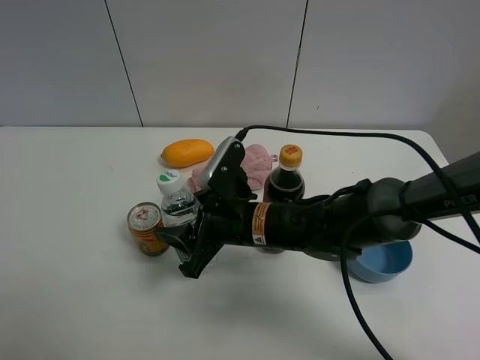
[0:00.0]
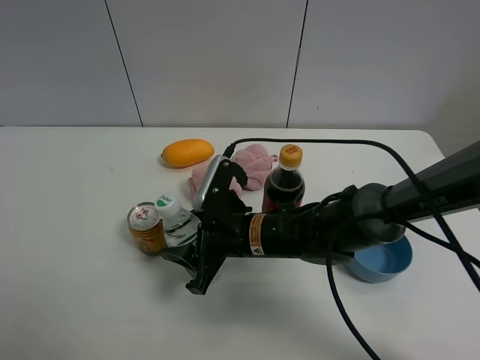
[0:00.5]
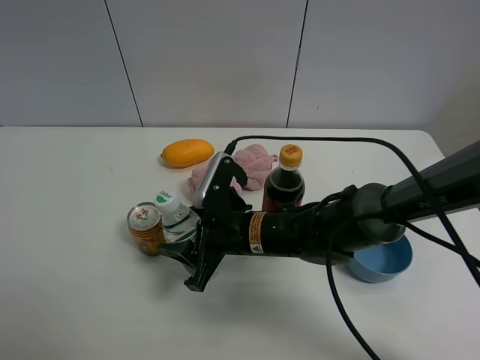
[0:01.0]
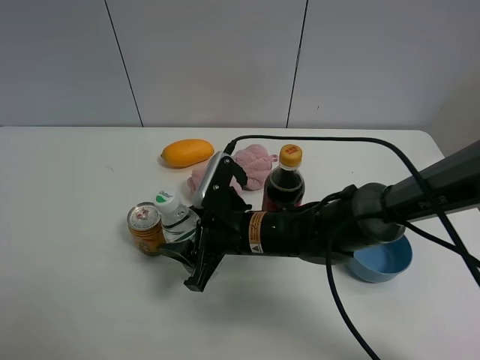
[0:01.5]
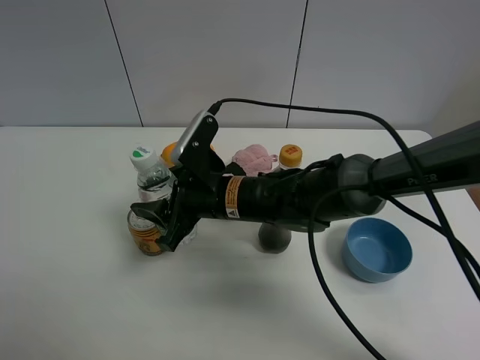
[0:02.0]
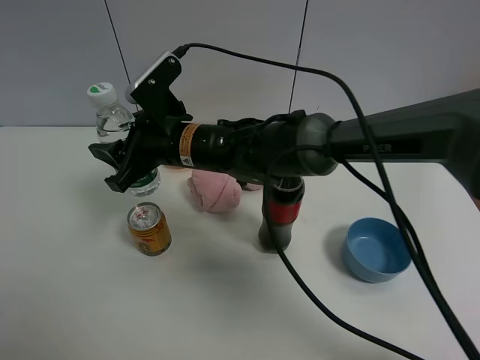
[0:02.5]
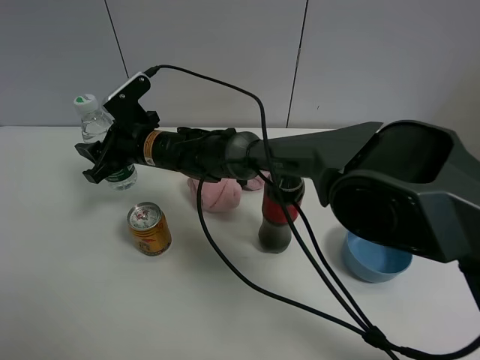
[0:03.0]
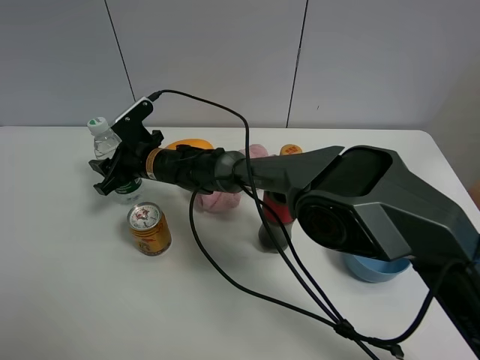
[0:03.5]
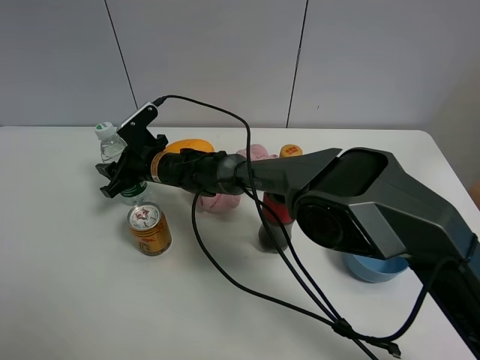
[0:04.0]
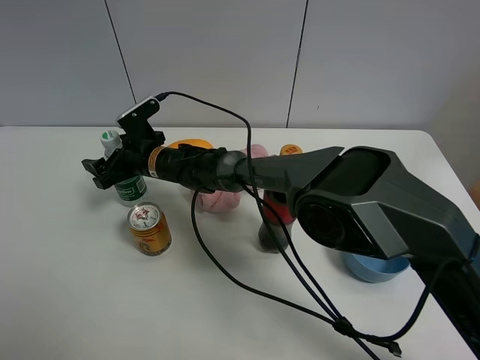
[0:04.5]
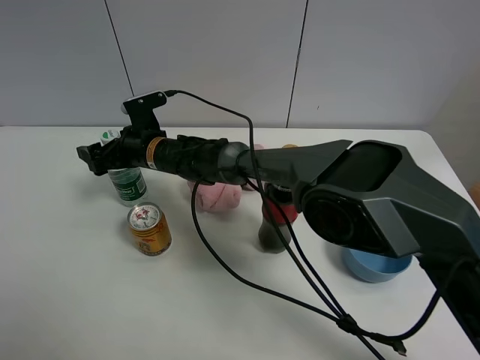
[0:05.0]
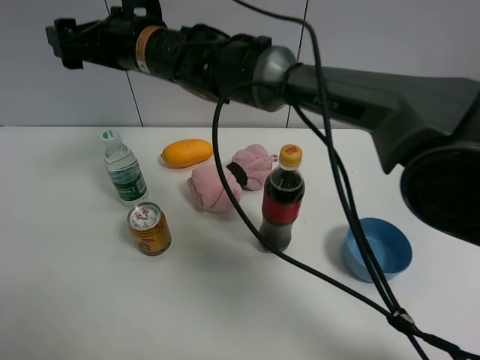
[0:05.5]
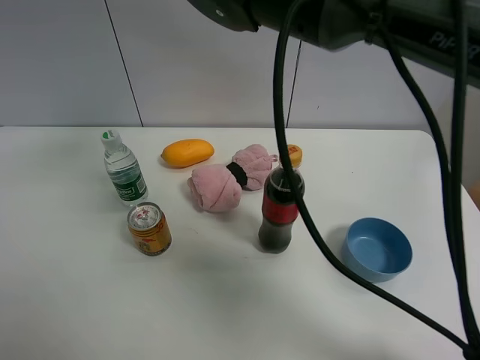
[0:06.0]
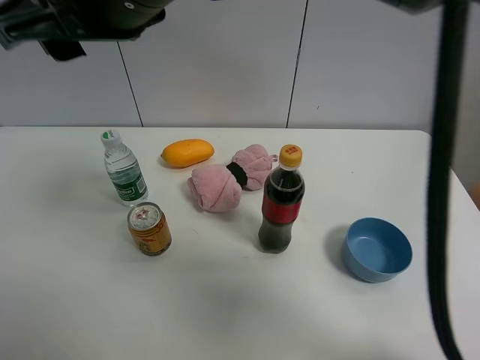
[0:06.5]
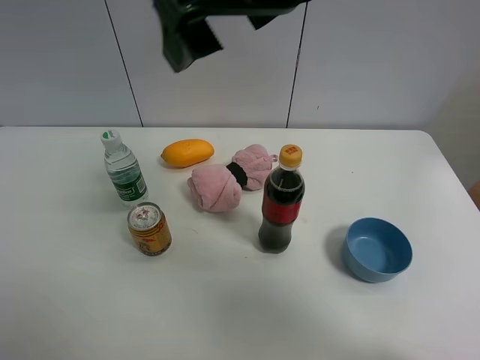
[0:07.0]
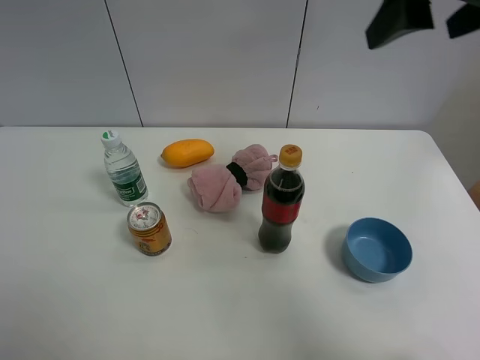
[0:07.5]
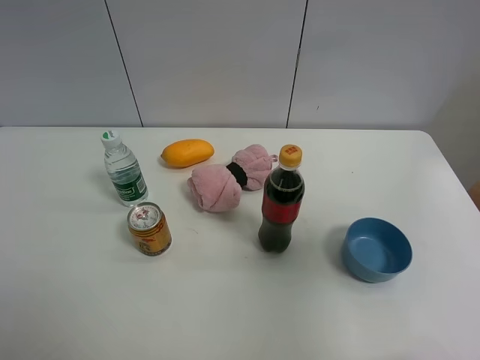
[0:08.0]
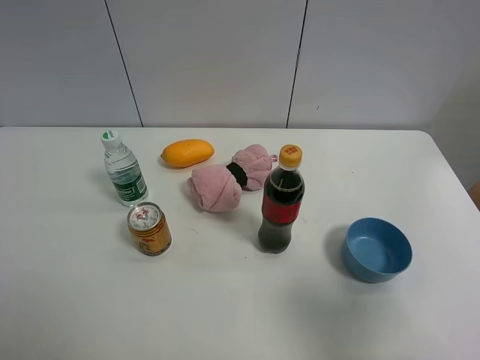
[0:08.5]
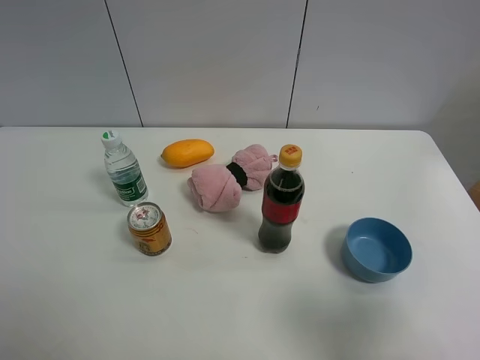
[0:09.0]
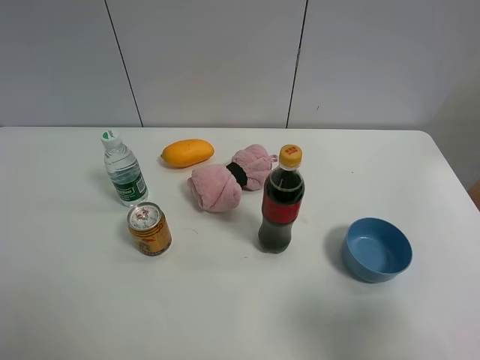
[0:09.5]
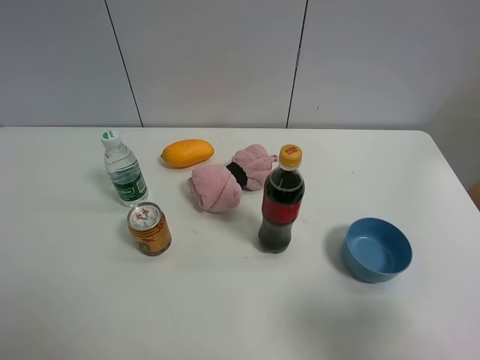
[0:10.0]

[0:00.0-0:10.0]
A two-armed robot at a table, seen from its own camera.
Task of the whole recording: the gripper move the object.
Step, 0:00.0 to 0:05.0: Place the YiBao mineral water on the table with the right gripper.
0:00.0 to 0:02.0: There are only small adjustments of the grippers.
0:02.0 to 0:04.0: The right gripper is displaced forward, to the left and downward by approximately 20 cm.
0:04.0 to 0:06.0: The right gripper moves upward, roughly 30 cm, and opens up.
0:06.0 to 0:08.0: The right gripper is displaced to the right and backward by some 40 cm, and opens its fingers.
0:08.0 to 0:10.0: The right gripper goes roughly 15 cm downward and backward.

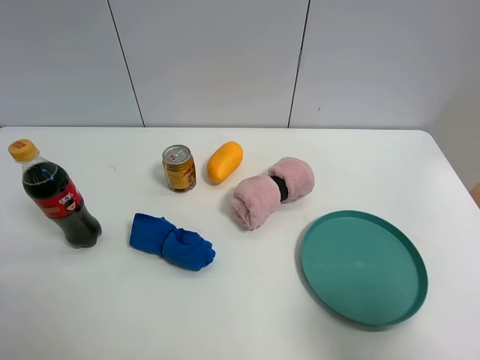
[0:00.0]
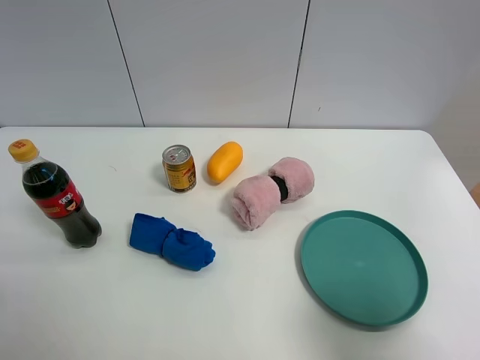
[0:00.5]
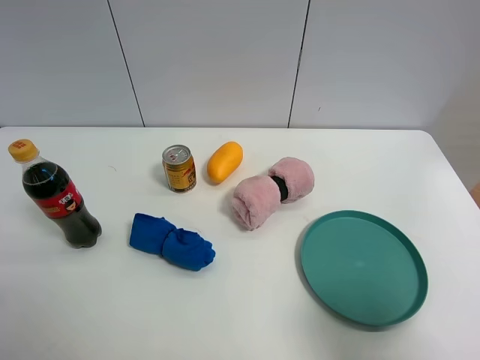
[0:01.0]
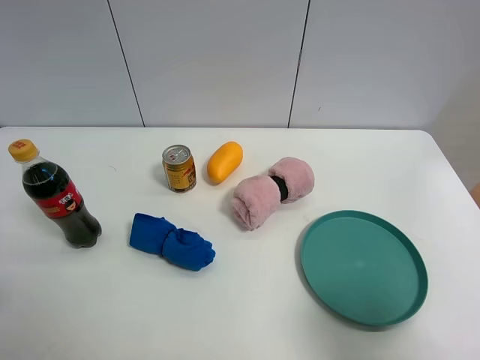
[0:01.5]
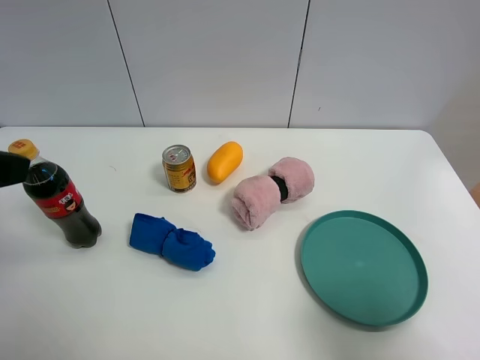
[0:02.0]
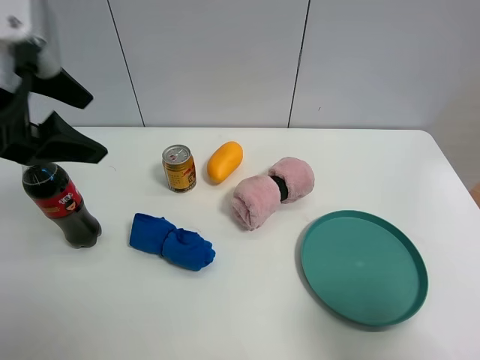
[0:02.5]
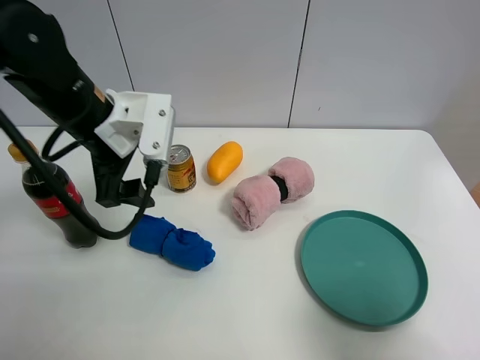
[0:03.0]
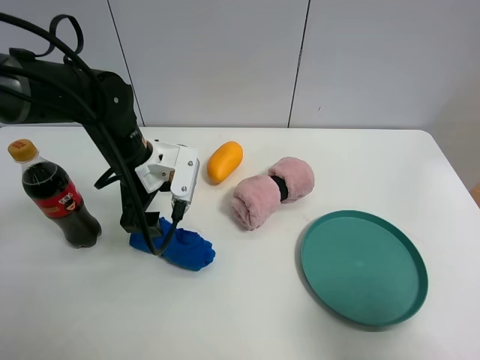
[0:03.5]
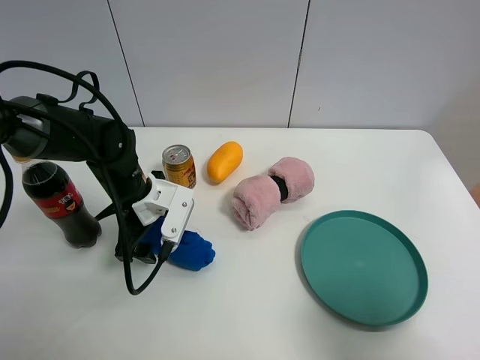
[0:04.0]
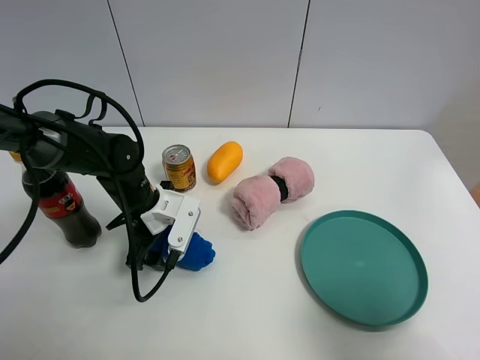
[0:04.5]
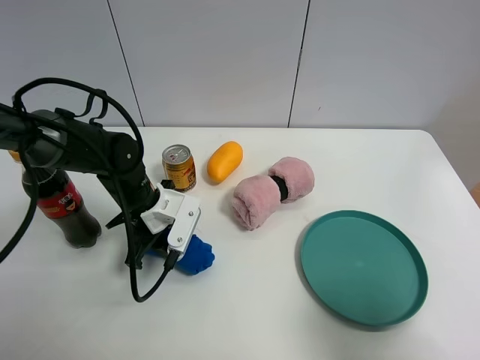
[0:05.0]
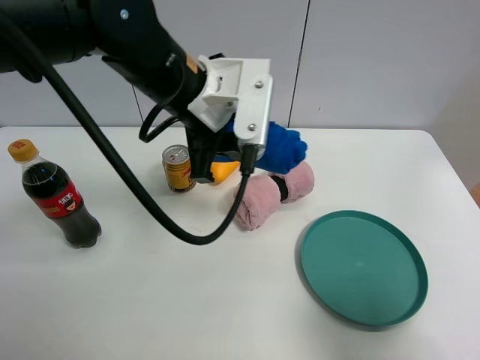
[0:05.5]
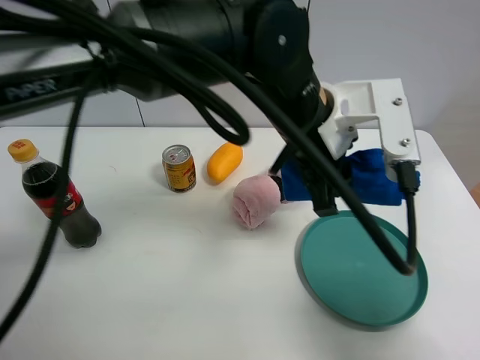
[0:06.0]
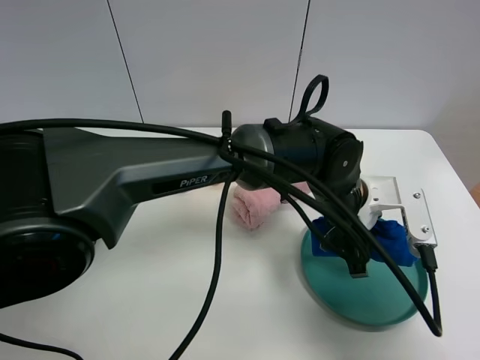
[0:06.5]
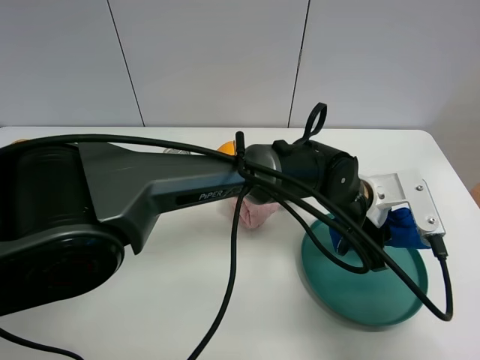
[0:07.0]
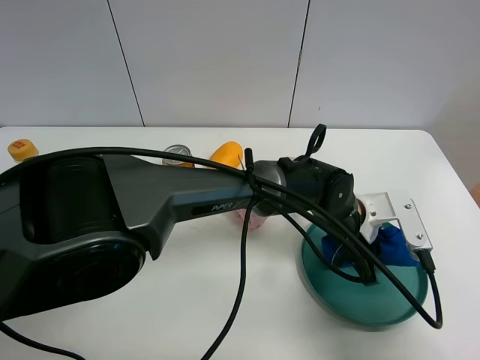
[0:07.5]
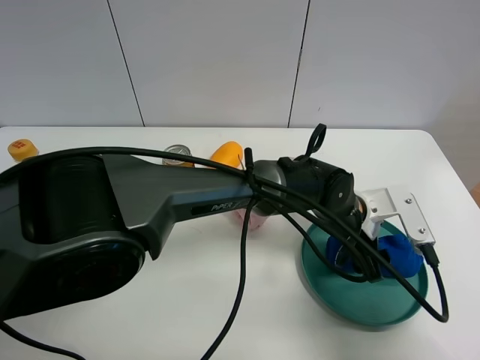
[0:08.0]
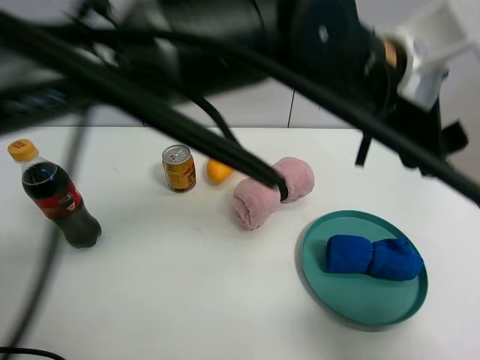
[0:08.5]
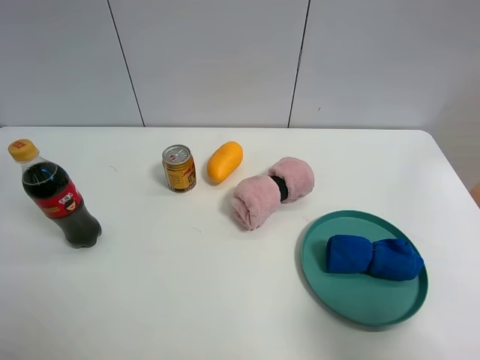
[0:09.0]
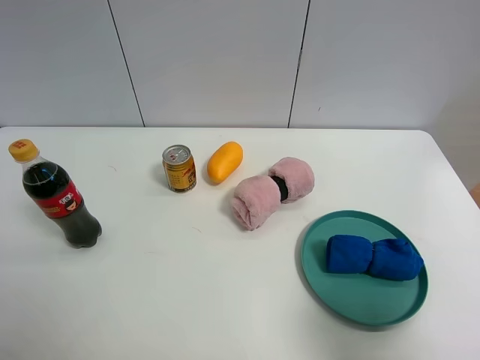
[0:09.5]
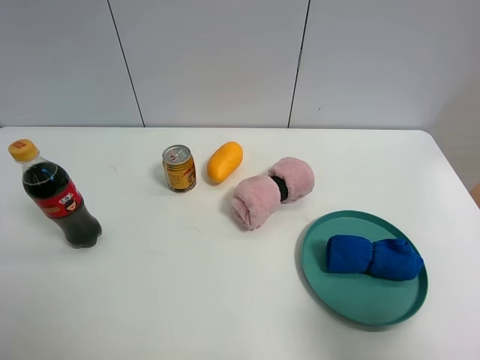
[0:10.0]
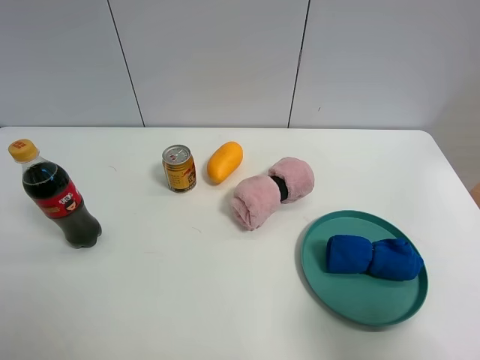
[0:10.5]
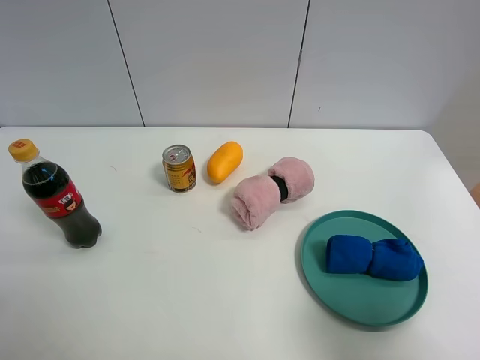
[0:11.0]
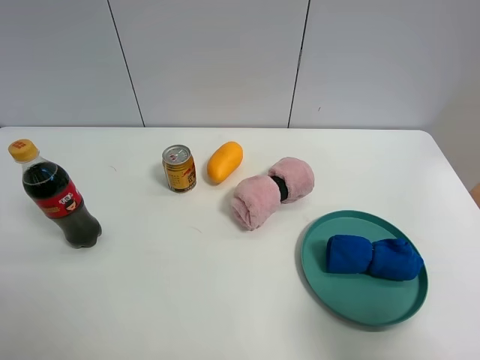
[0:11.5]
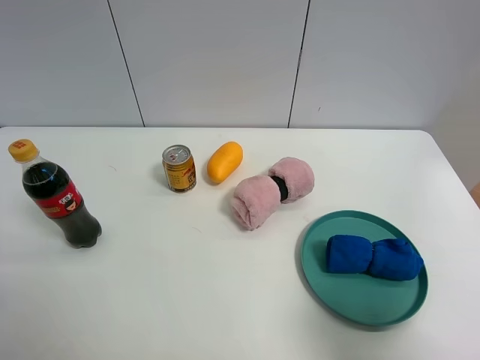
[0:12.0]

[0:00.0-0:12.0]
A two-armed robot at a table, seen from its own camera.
Task of the whole recording: the gripper move the object.
Step, 0:00.0 to 0:04.5: Grasp the blue towel with the left gripper.
Step, 0:05.0 to 0:08.0: Place the blue towel into the green plate with the left gripper.
0:02.0 to 0:04.0: The left gripper travels downward, forward and to the right by roughly 30 cm.
0:04.0 to 0:06.0: The left gripper moves to the right and upward, some 25 cm, and closes its fingers.
0:06.0 to 0:08.0: The left gripper shifts roughly 20 cm downward and to the right, and opens.
0:08.0 to 0:10.0: The left gripper moves to the left, backward and upward, some 70 cm.
